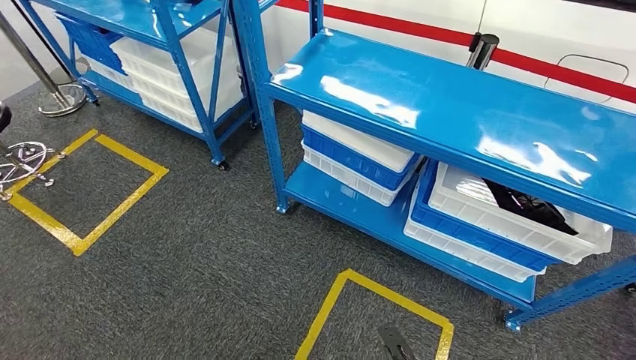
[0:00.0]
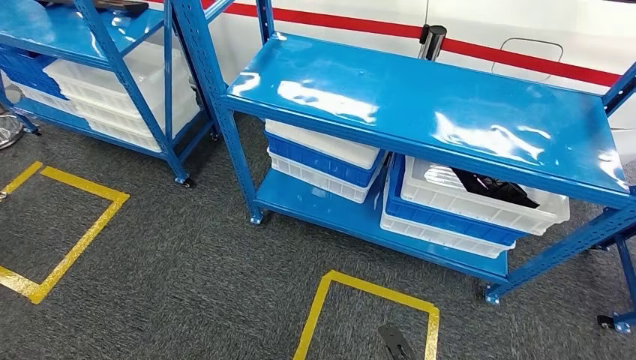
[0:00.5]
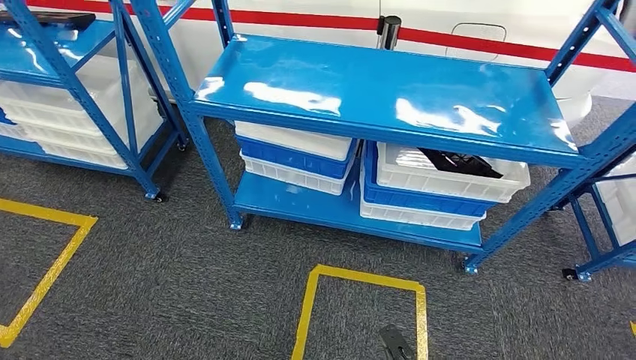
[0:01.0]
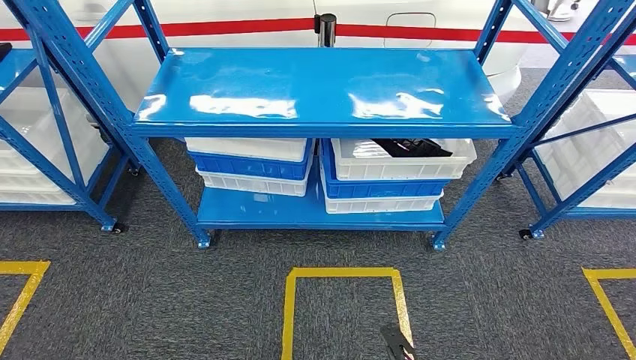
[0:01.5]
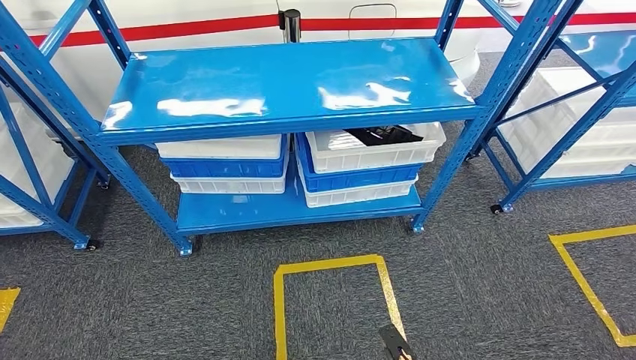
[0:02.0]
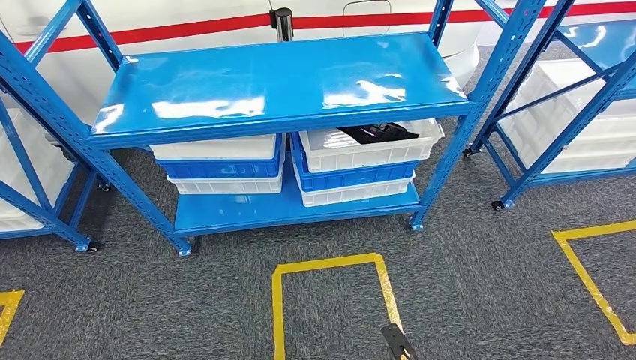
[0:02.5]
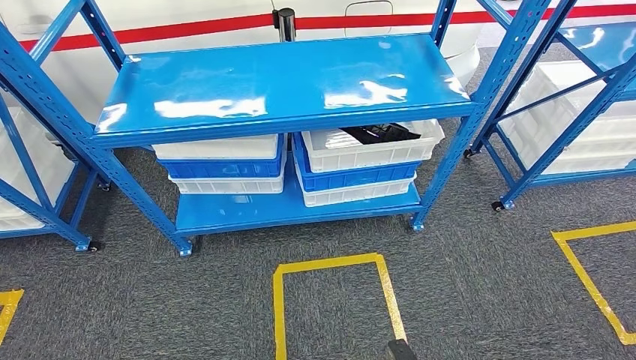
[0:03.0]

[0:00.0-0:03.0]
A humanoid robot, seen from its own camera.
Step, 0:00.0 to 0:03.0: Return to the initial position at the shelf.
